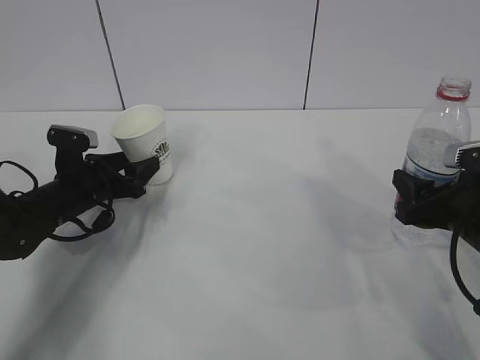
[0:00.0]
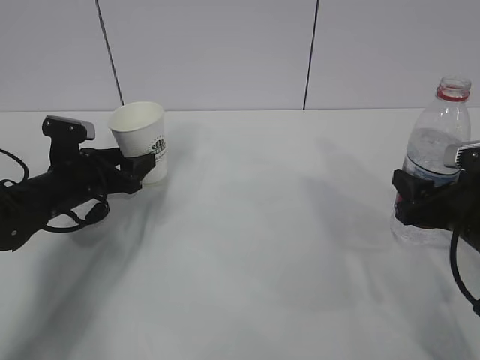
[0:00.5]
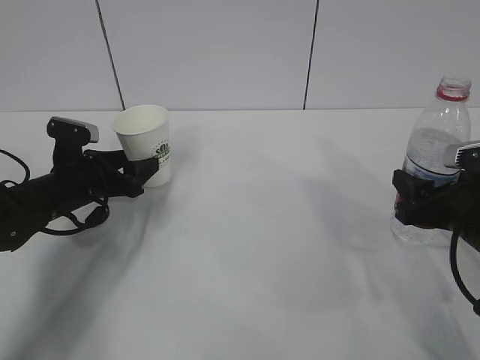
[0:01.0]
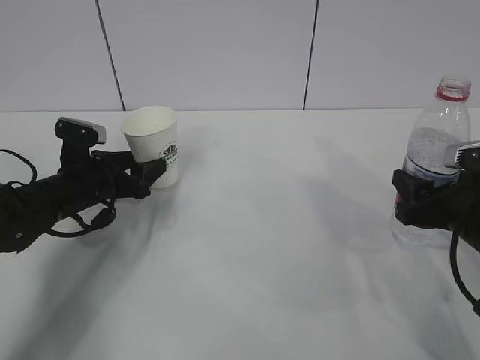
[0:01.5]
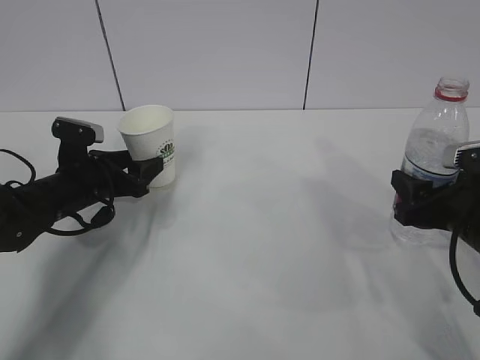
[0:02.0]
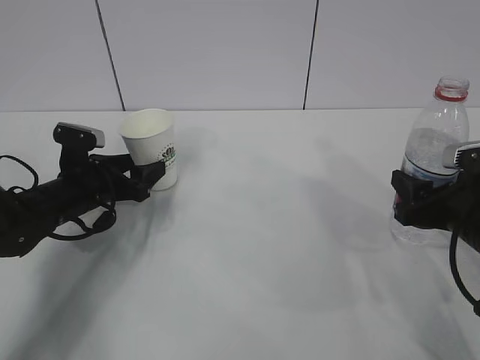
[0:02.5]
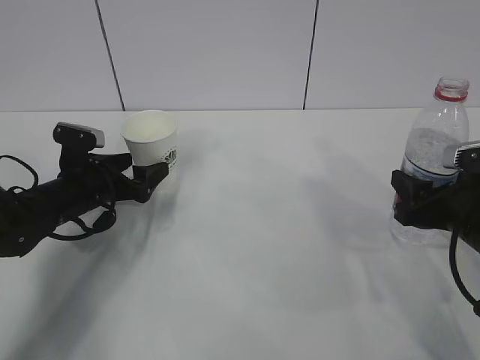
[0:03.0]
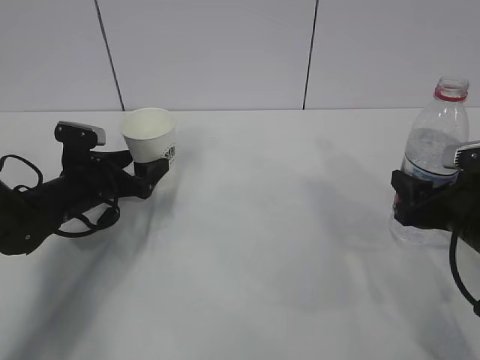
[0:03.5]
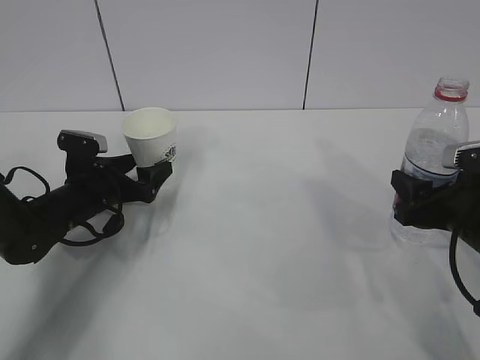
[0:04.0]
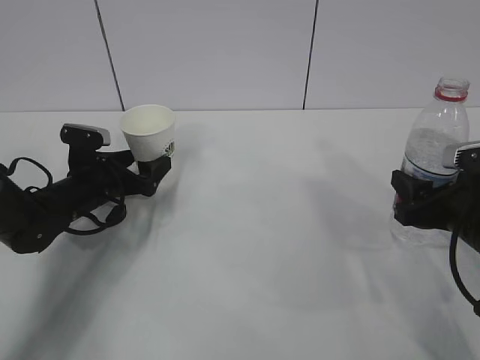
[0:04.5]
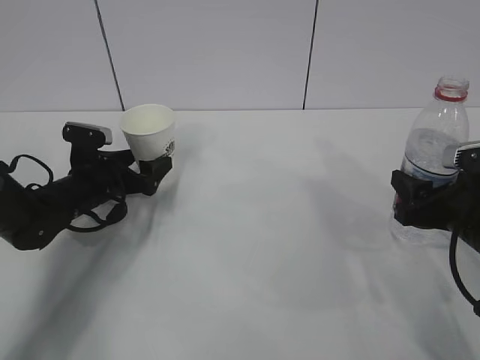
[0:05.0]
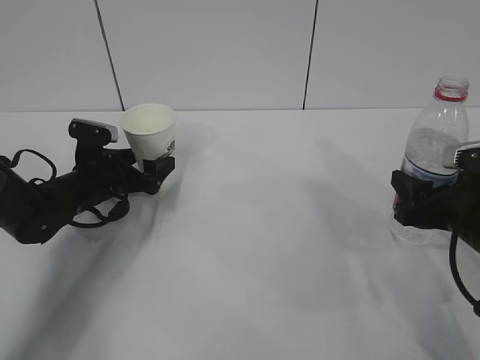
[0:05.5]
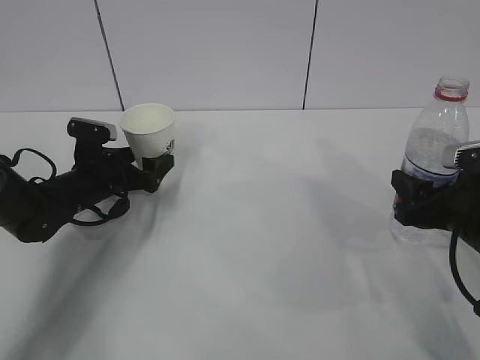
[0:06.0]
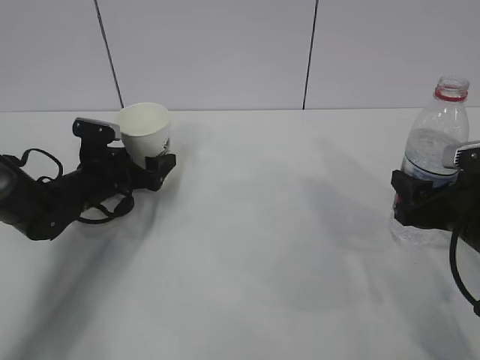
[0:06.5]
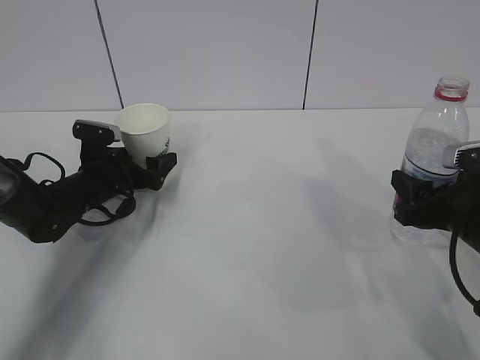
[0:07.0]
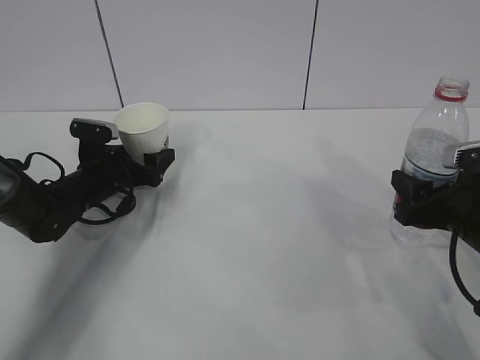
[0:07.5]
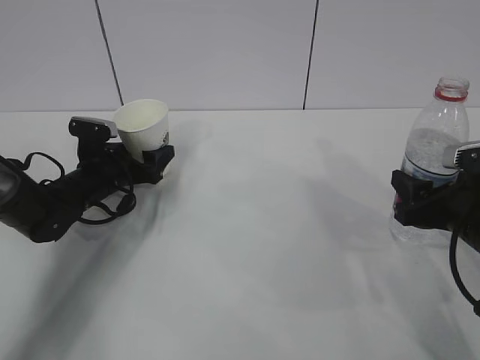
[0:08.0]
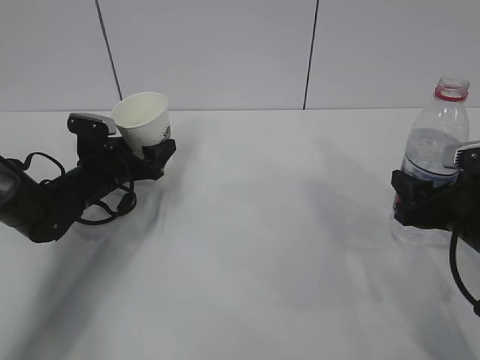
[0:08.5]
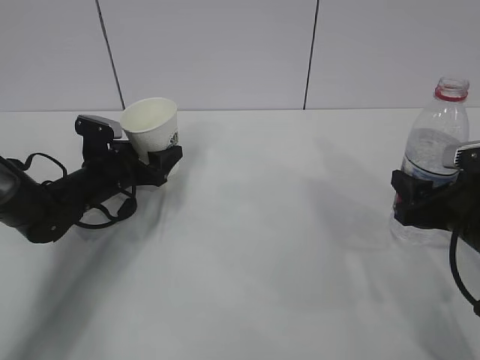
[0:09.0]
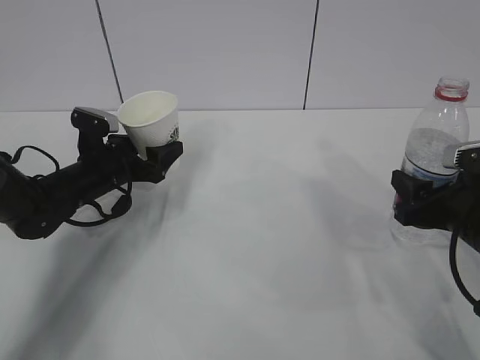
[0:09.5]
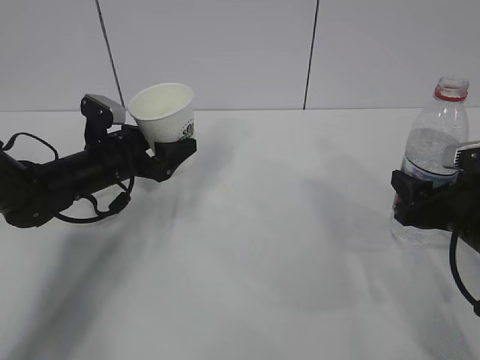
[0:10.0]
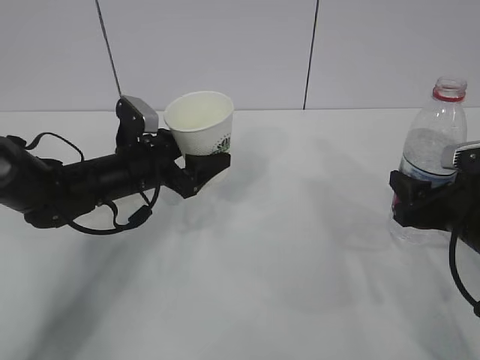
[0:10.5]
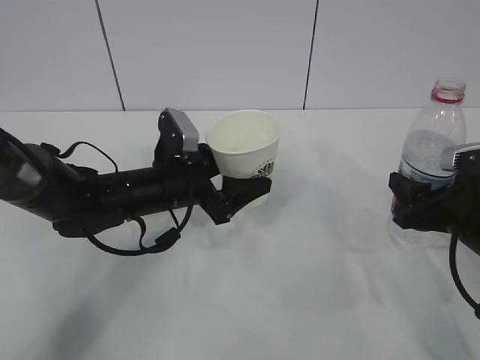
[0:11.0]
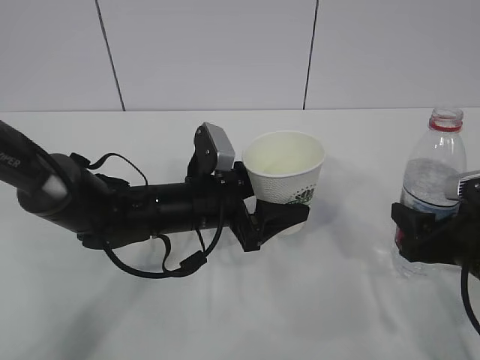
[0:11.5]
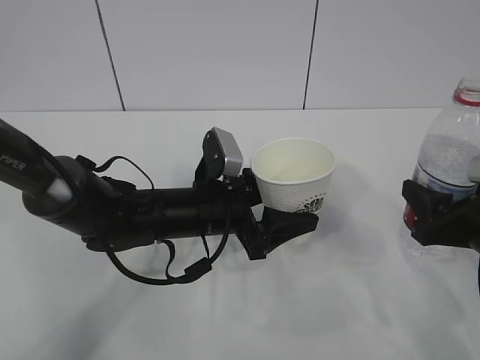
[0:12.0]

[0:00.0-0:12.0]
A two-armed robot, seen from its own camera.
0:00.0 to 0:02.0: The grippers move only a little.
0:02.0 to 0:04.0: The left gripper opens.
0:04.0 to 0:08.0: The grippers move only a little.
0:08.0 to 0:10.0: The left gripper ends up about 5 cm from where it was.
0:10.0 to 0:12.0: The left gripper goes about 15 cm to the right and backward.

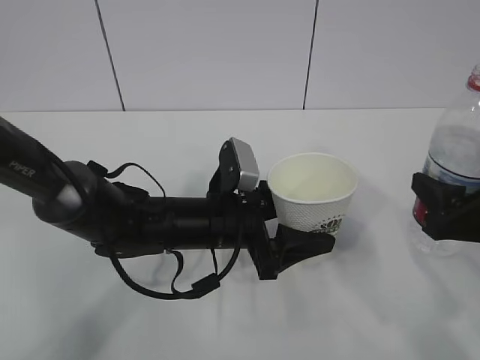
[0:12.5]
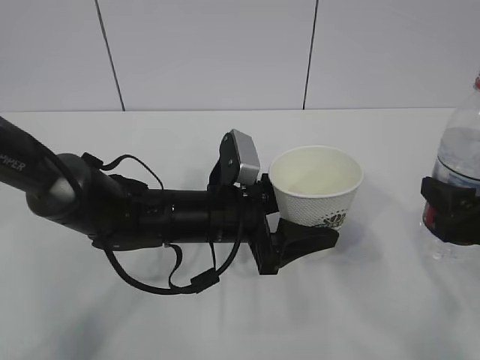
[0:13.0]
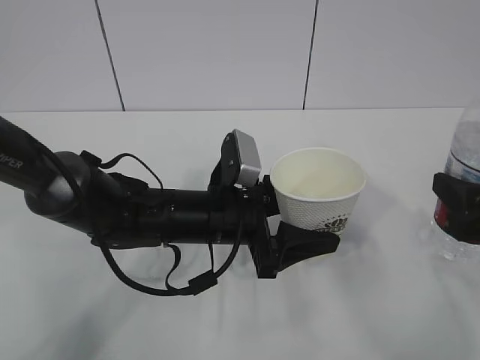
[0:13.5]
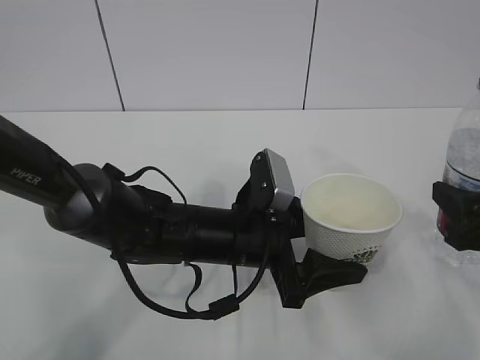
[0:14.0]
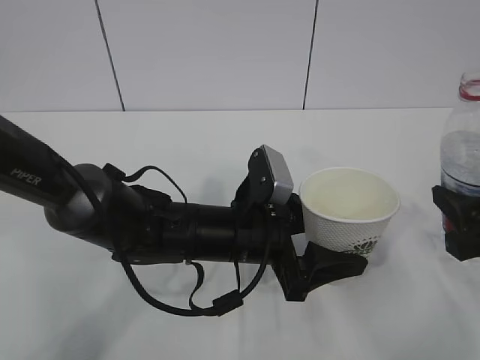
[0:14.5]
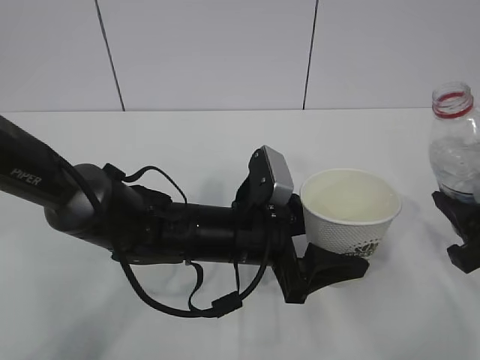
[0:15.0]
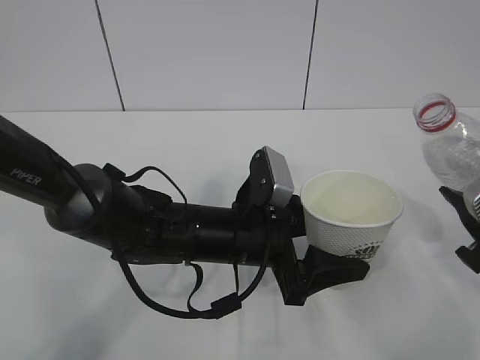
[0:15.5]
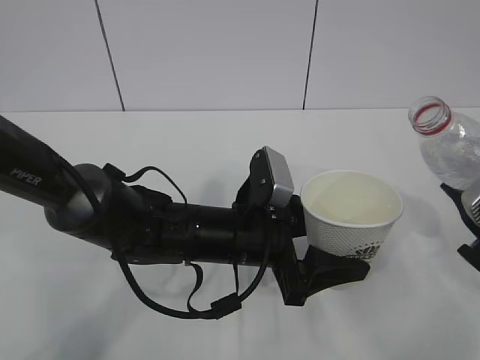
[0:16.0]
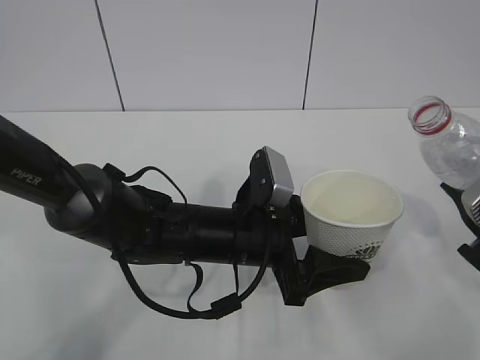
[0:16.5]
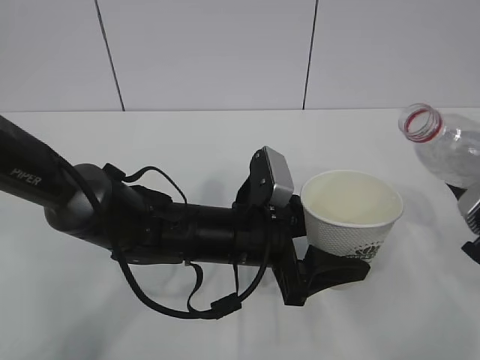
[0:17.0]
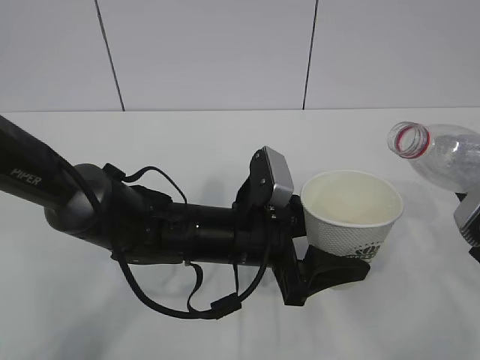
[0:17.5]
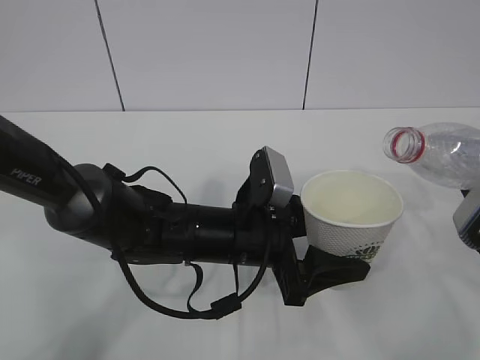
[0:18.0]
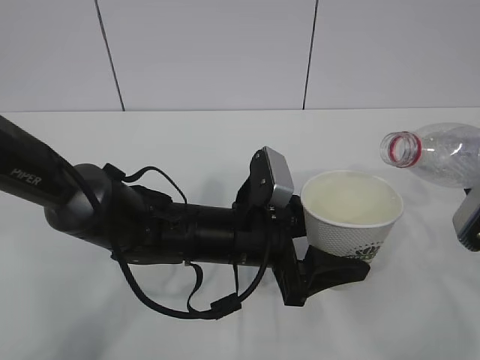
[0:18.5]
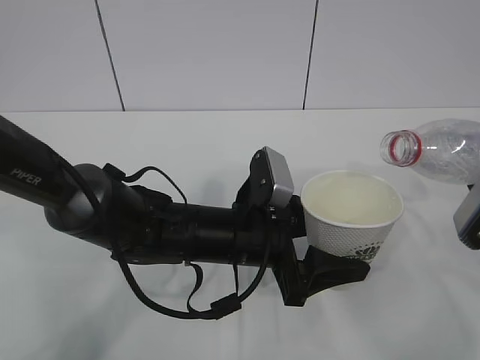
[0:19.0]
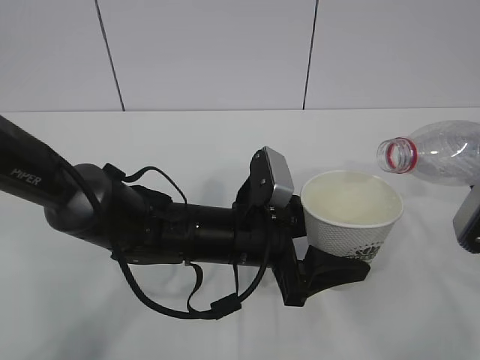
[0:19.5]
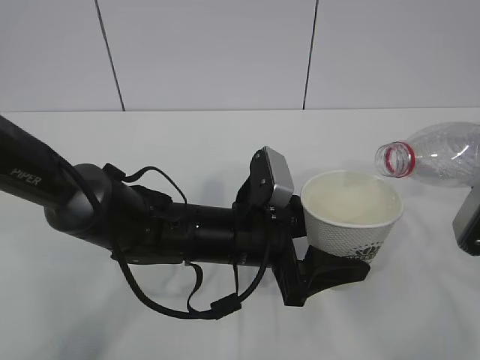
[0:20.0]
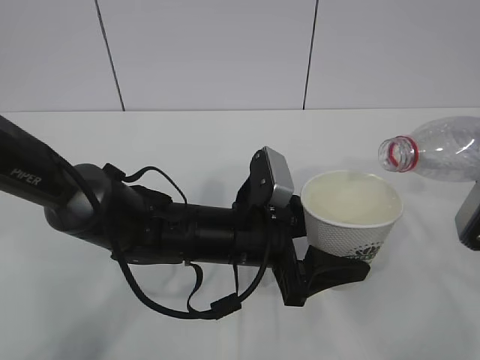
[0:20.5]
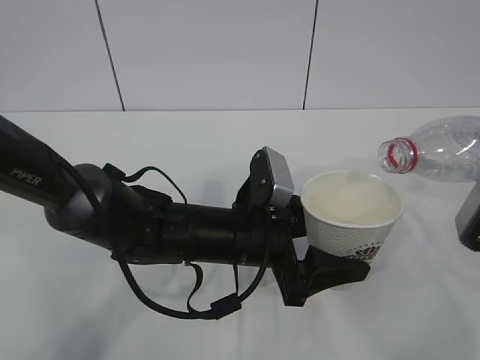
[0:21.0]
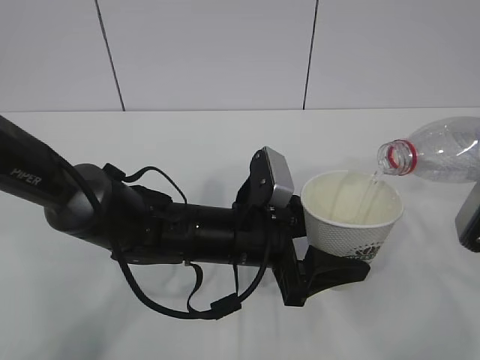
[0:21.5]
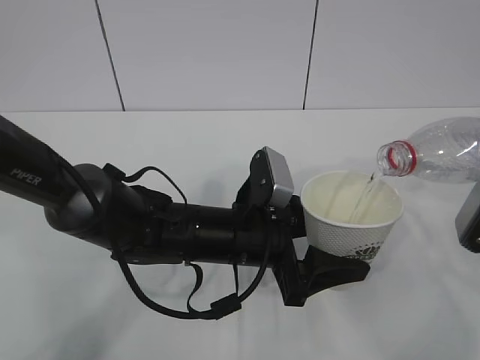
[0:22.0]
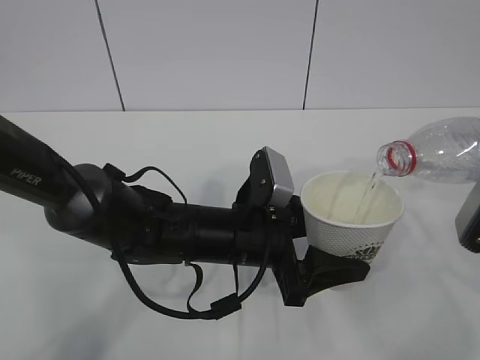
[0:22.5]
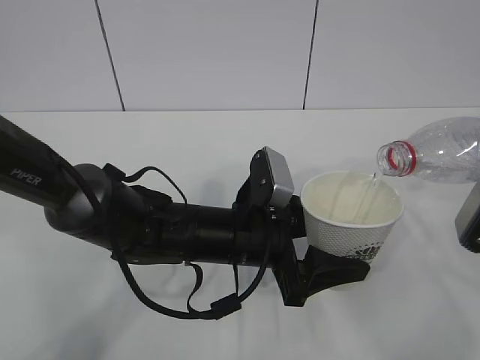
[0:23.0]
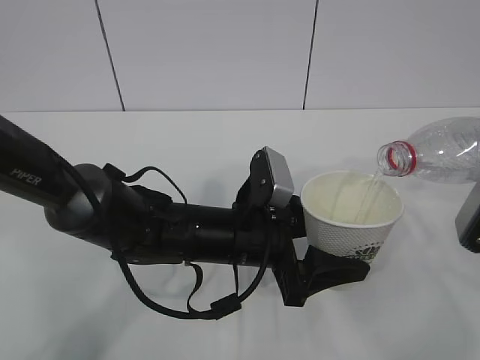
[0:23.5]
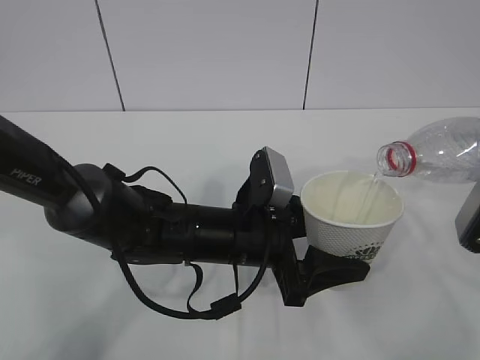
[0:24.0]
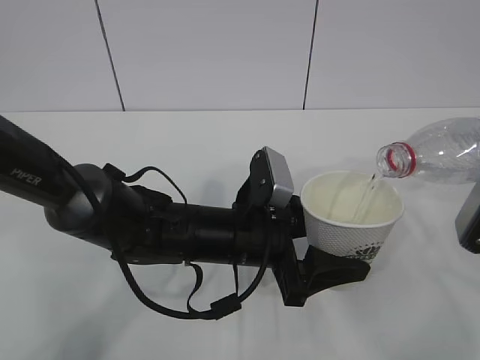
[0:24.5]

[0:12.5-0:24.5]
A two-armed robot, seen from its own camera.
0:12.5 to 0:14.5: There are only small adjustments of the grippers.
0:20.5 to 0:24.5: Neither gripper changes place.

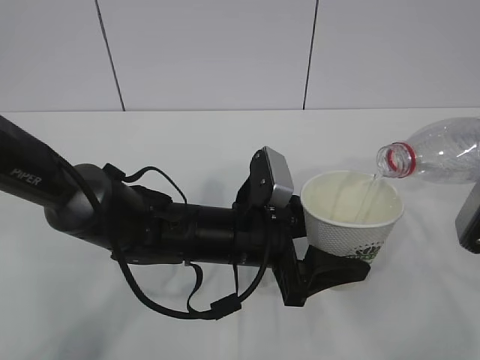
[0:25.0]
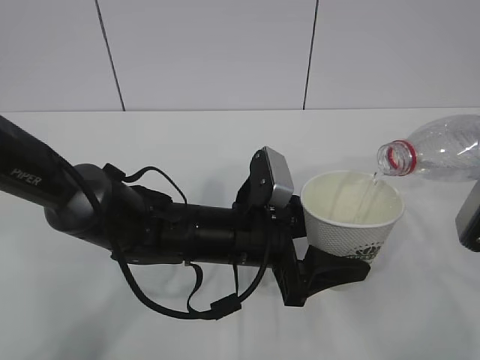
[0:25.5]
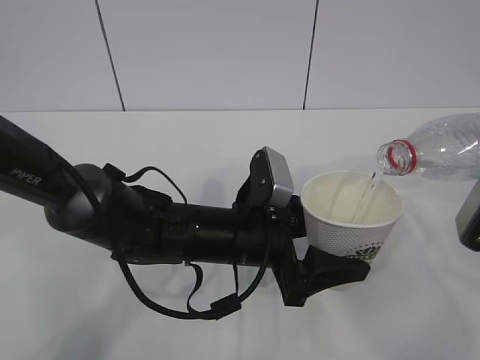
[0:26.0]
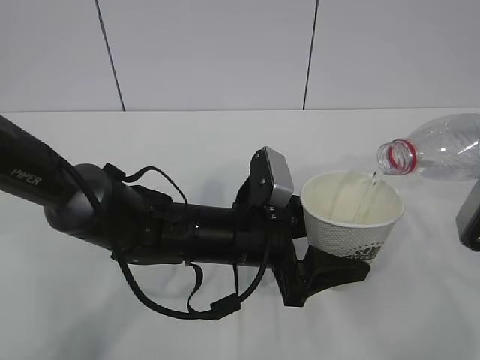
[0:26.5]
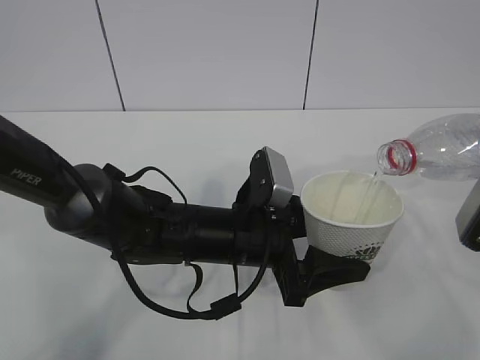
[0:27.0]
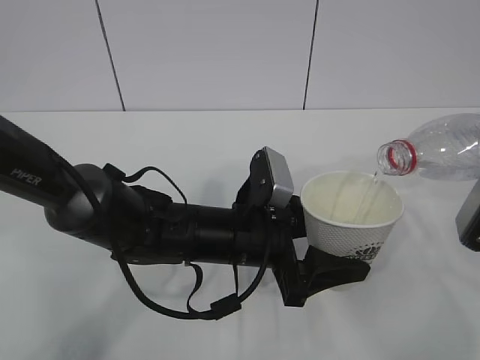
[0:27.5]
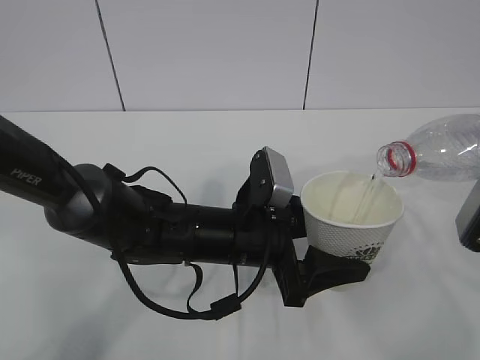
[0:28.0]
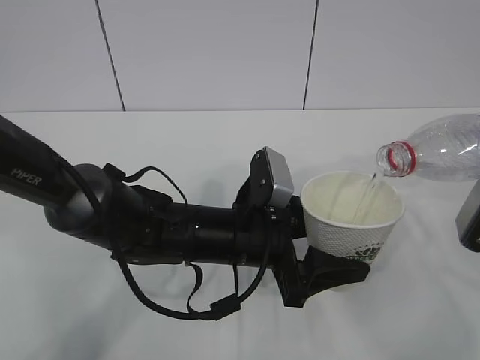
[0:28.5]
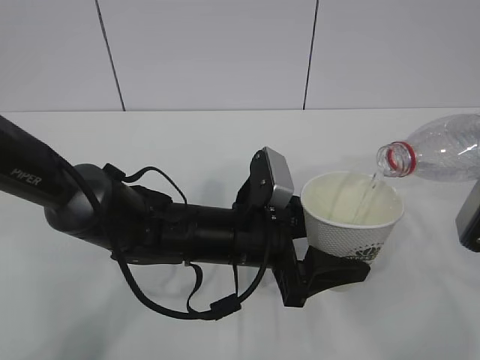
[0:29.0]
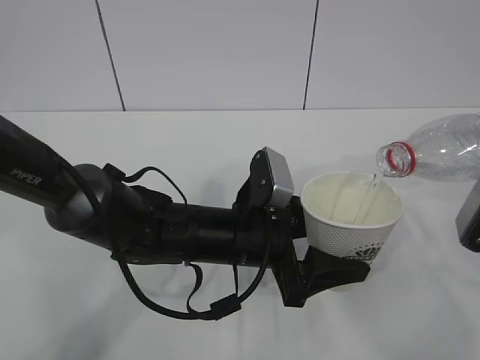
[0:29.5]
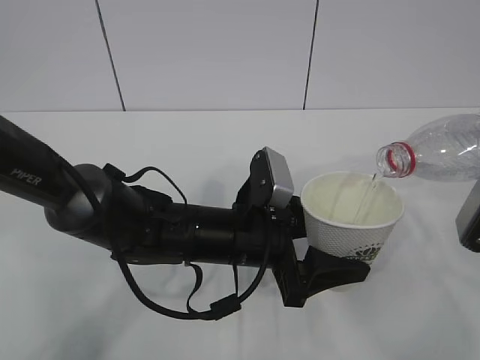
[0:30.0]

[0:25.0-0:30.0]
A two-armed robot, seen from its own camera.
0:25.0 to 0:30.0: The two grippers keep their place.
